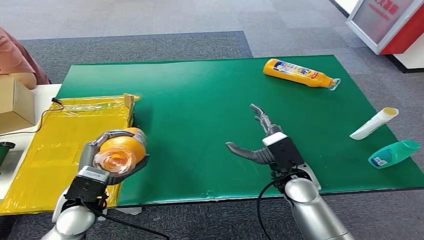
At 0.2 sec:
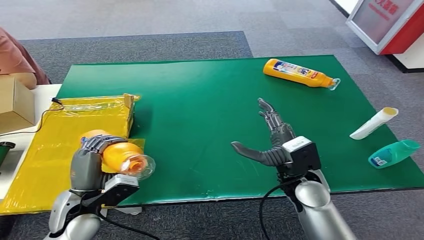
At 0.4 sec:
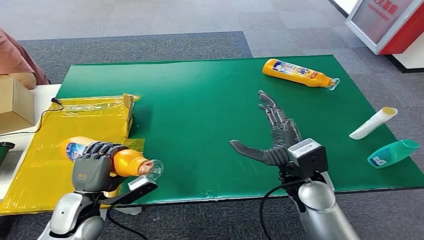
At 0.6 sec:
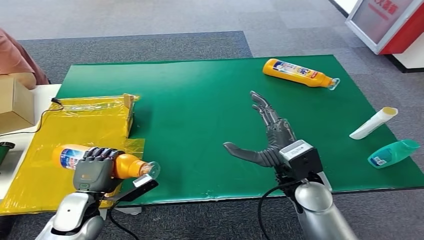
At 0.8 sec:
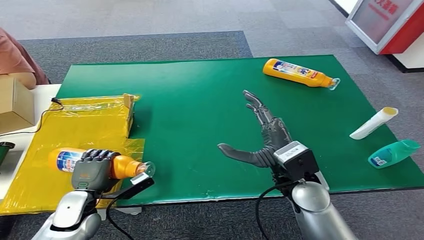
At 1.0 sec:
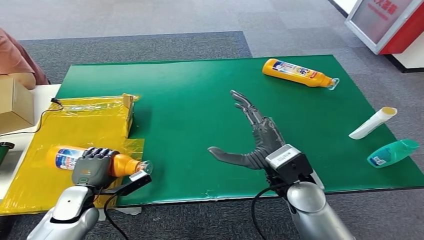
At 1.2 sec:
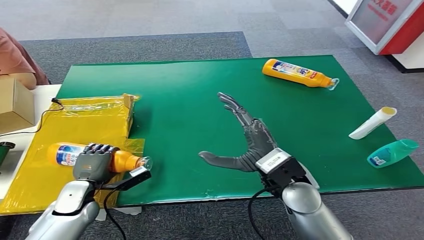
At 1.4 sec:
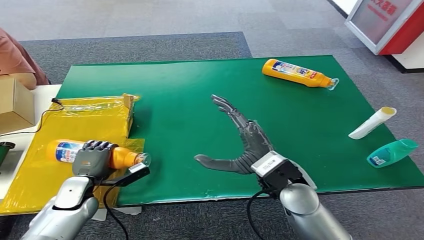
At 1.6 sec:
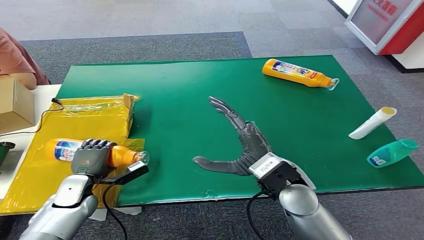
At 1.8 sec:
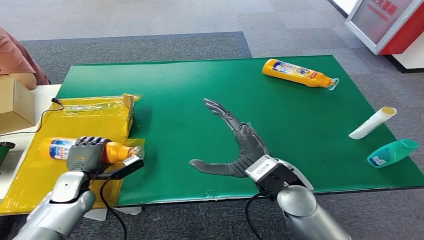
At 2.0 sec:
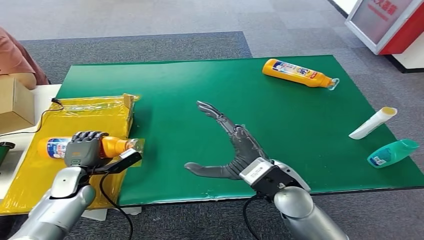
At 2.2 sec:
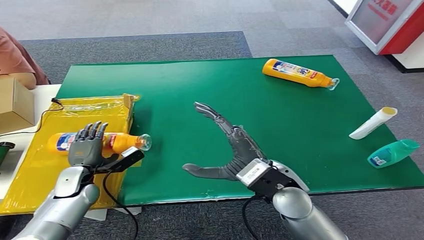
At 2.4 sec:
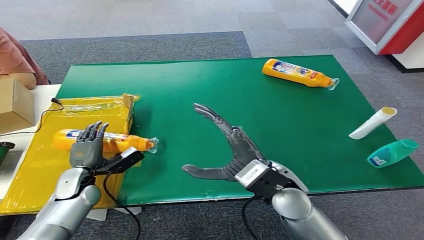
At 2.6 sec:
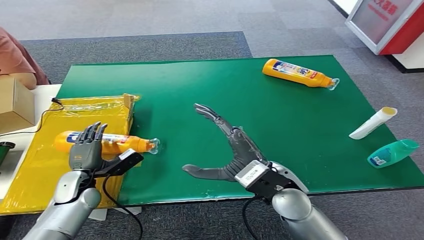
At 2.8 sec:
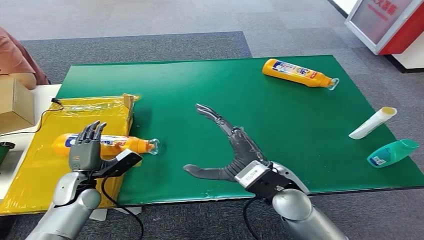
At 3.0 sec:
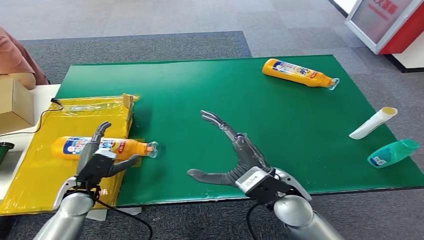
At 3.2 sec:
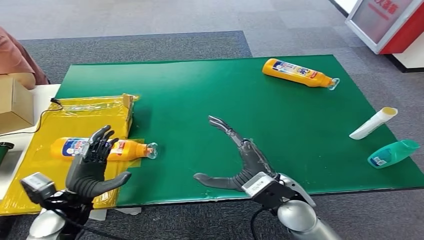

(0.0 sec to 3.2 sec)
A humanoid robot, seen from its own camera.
Step, 0.0 sec - 3.2 sec: Turn the bottle to the front side.
0.0 sec - 1.6 sec: The right hand heads upward, covering about 5 cm; the left hand travels downward, to the left and forward by some 15 cm.
1.6 sec - 3.2 sec: The left hand is displaced upward and backward by approximately 10 cm.

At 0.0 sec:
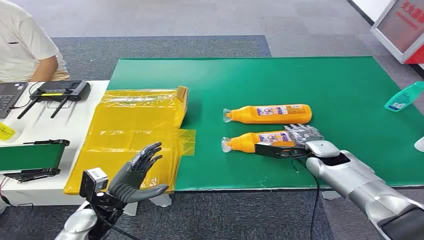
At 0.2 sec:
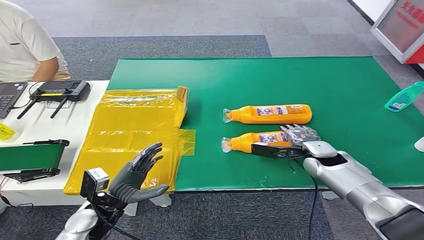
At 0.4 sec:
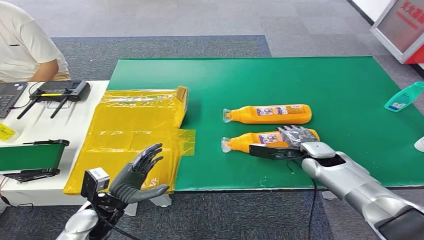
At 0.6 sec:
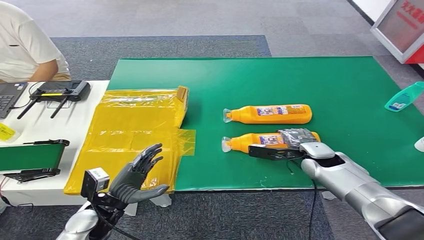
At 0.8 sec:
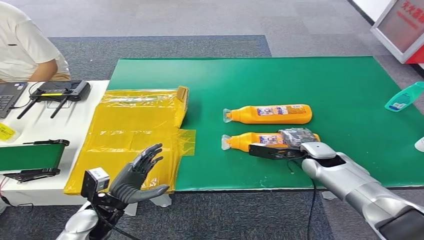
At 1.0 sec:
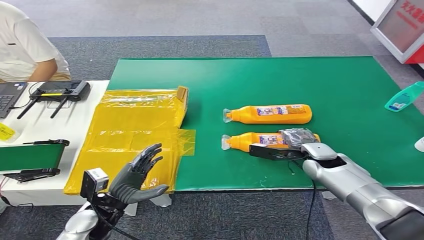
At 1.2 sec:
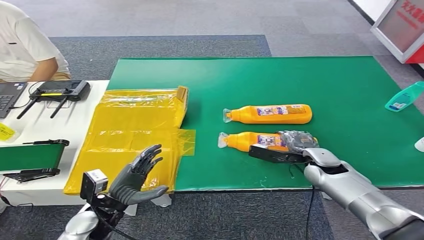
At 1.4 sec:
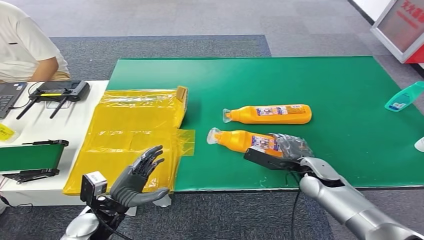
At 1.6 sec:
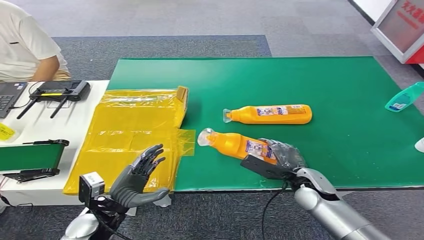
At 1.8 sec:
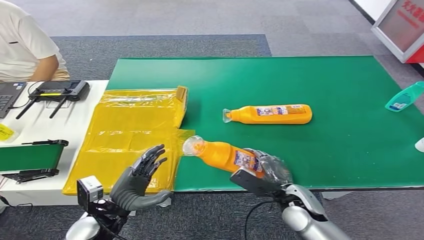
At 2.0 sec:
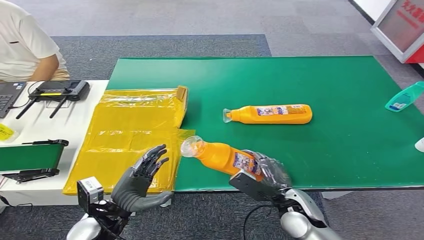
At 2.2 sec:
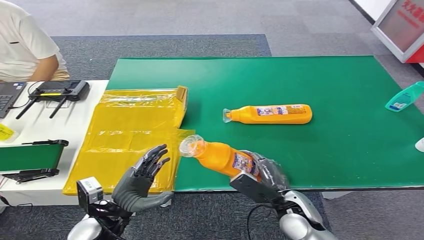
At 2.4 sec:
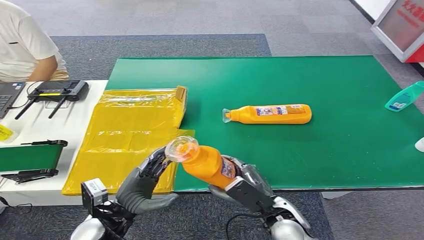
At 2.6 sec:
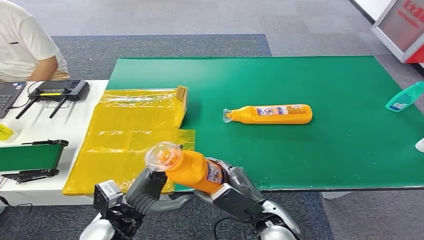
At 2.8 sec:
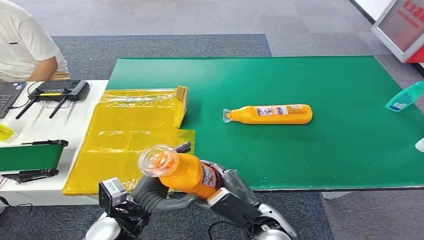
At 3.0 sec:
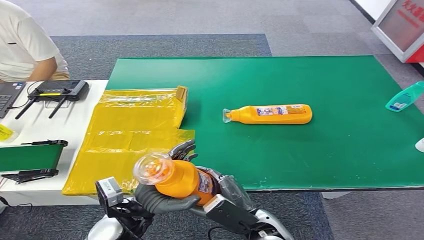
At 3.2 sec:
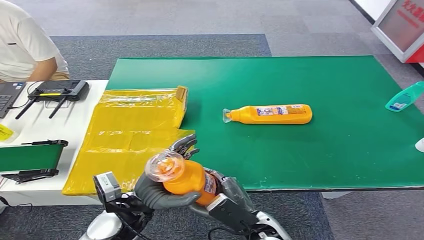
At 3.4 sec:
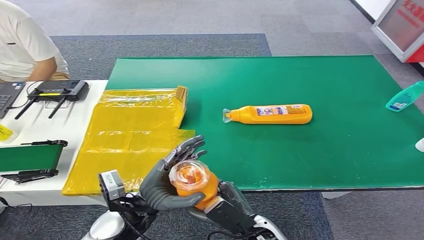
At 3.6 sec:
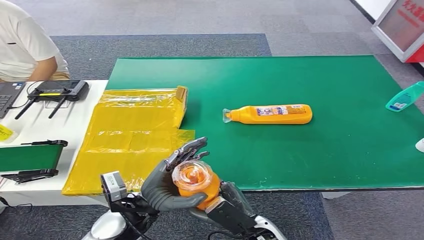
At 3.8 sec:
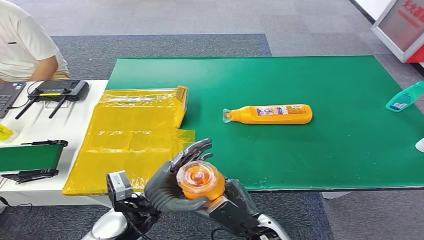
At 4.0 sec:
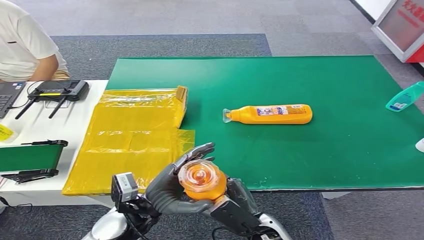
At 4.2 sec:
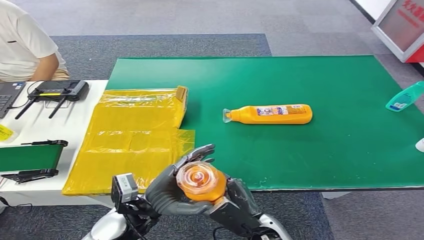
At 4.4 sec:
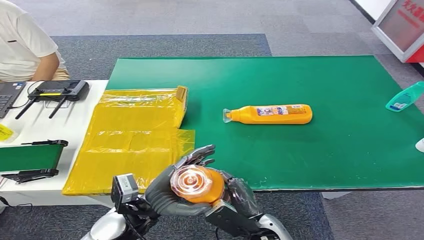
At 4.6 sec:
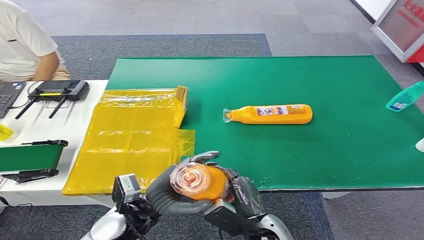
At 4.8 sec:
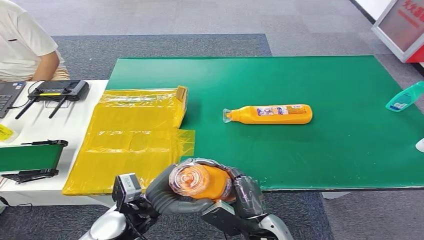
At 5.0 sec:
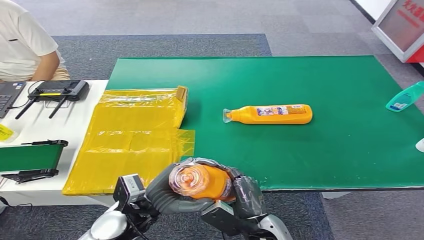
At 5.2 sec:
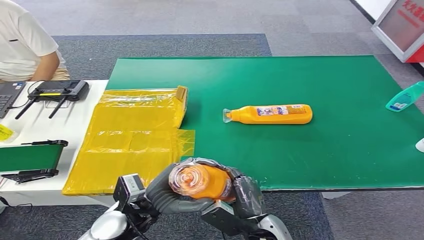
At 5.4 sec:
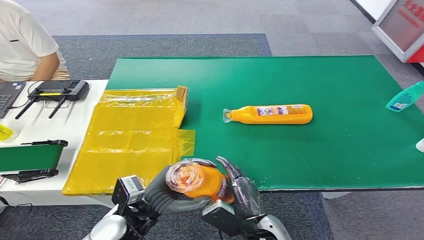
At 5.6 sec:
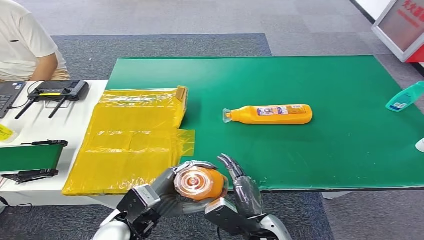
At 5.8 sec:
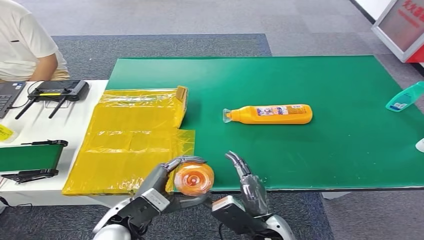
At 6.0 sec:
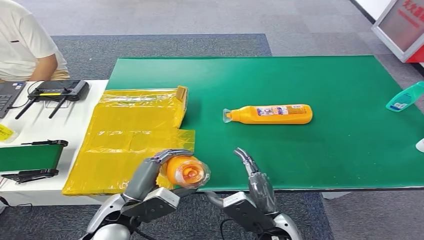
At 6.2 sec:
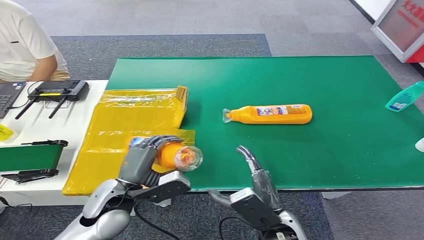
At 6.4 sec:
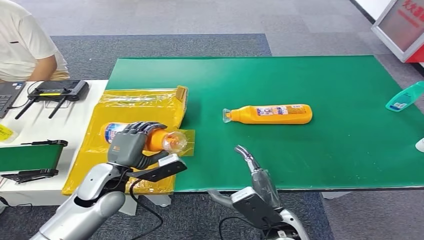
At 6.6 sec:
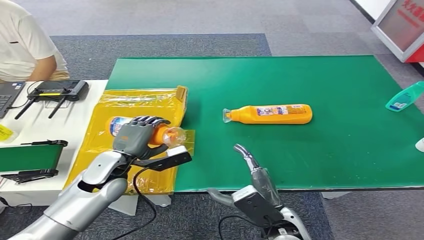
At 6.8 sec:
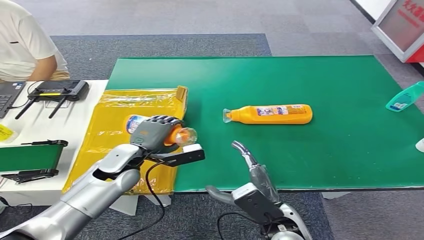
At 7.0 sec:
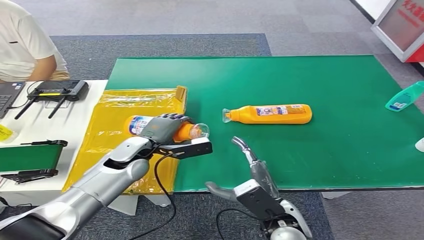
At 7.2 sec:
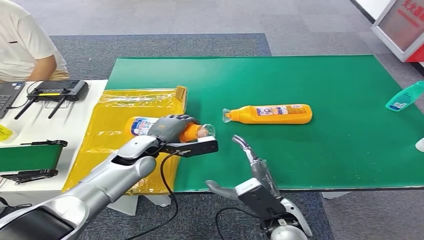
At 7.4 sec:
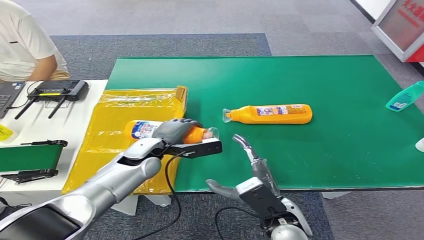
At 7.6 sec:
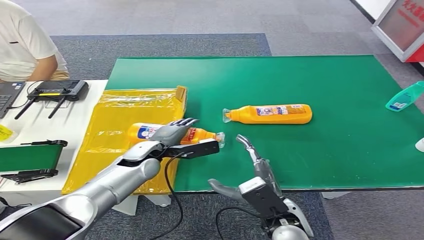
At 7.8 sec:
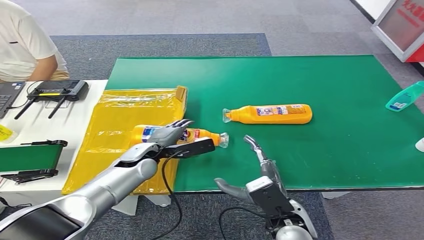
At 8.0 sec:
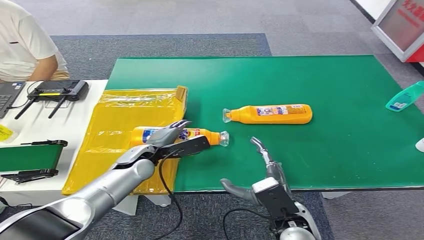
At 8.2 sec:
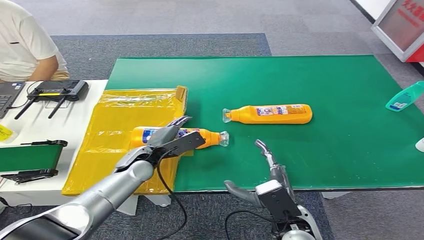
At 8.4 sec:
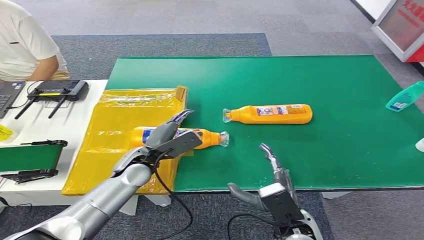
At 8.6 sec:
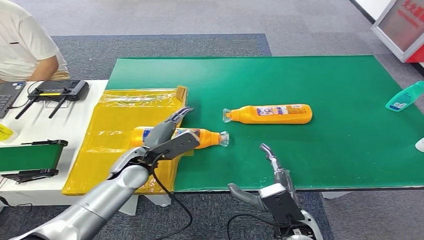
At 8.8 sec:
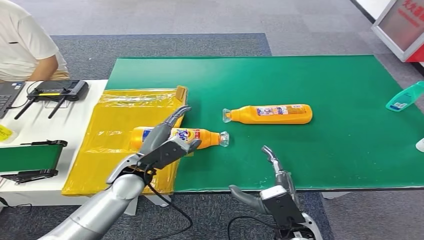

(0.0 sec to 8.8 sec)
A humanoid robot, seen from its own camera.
Step, 0.0 sec - 2.0 sec: Pick up the bottle from the table.
Step, 2.2 sec - 8.8 sec: Turn the bottle to the front side.
1.4 sec - 3.0 sec: The right hand heads backward and to the left, covering some 20 cm, while the left hand travels to the right and upward by roughly 10 cm.
3.0 sec - 4.4 sec: The hands stay close to where they were, moving slightly.
5.8 sec - 7.4 sec: The right hand shifts by some 5 cm. The left hand moves forward, about 20 cm.
7.4 sec - 8.8 sec: The left hand goes about 5 cm backward.
